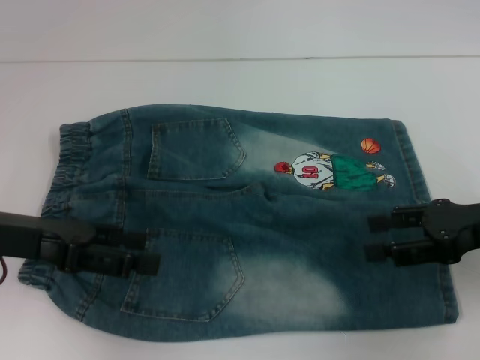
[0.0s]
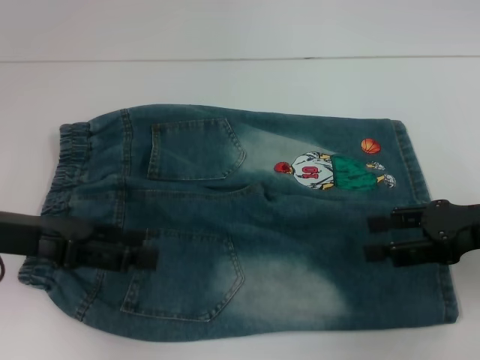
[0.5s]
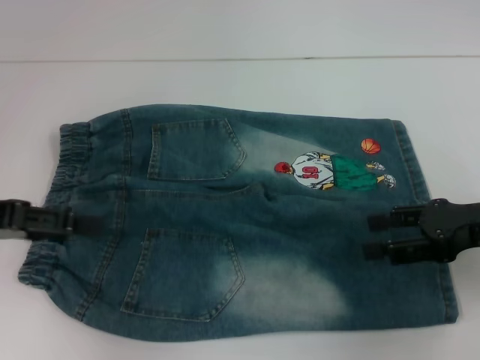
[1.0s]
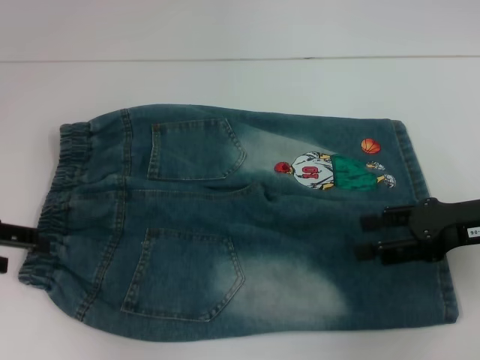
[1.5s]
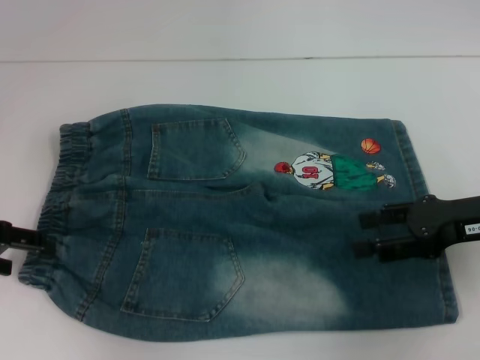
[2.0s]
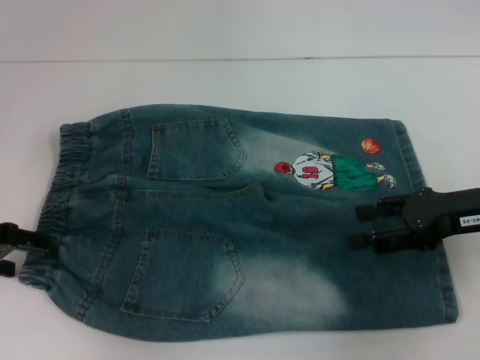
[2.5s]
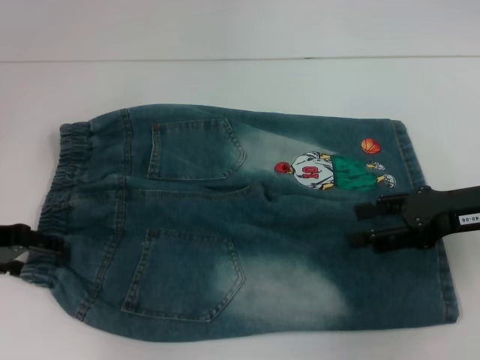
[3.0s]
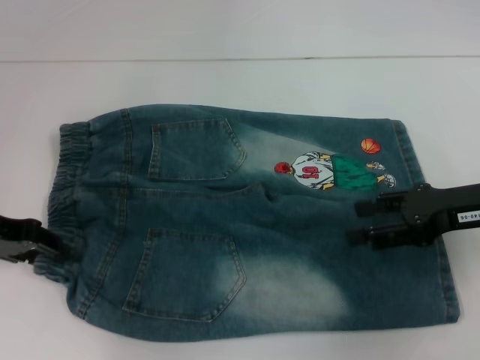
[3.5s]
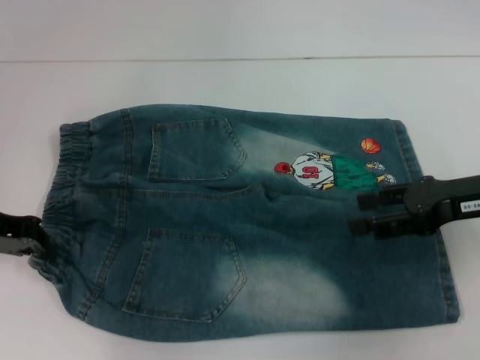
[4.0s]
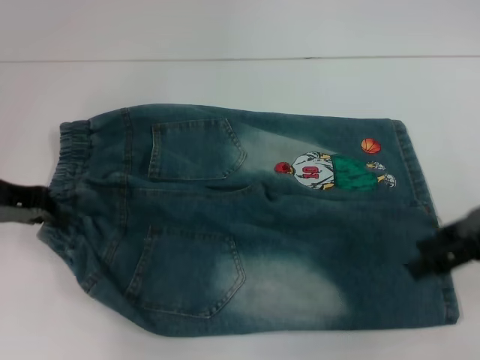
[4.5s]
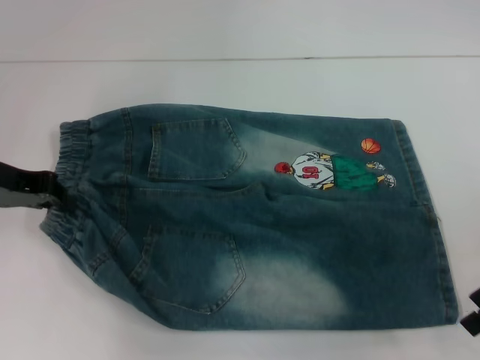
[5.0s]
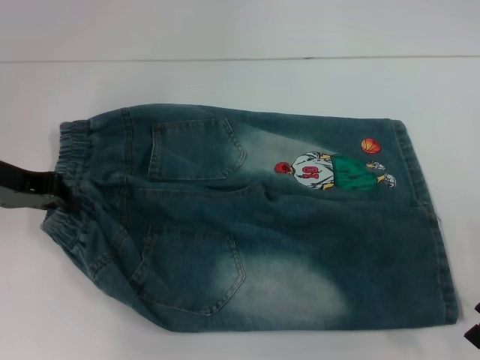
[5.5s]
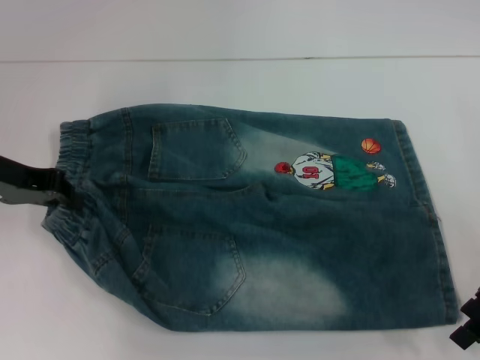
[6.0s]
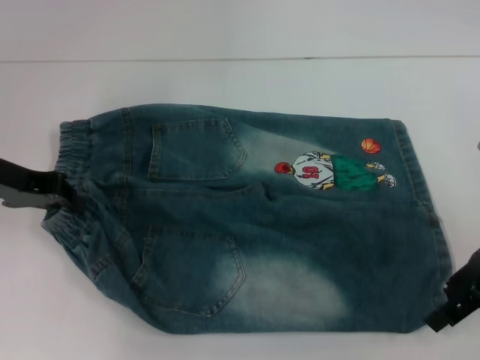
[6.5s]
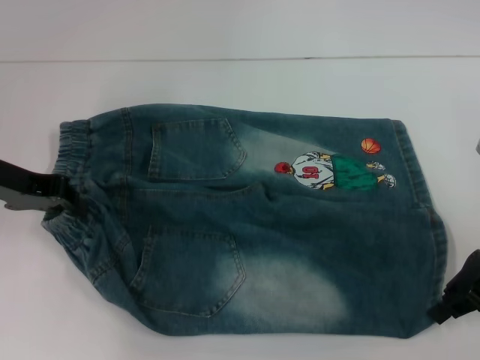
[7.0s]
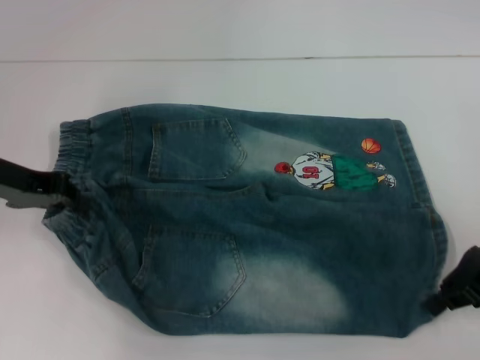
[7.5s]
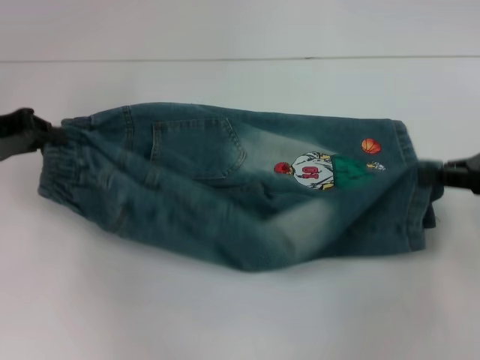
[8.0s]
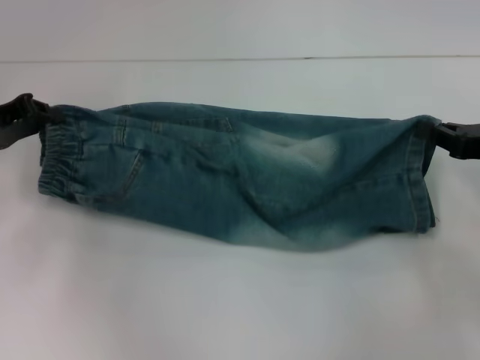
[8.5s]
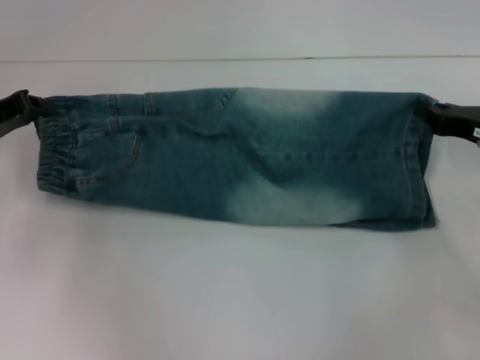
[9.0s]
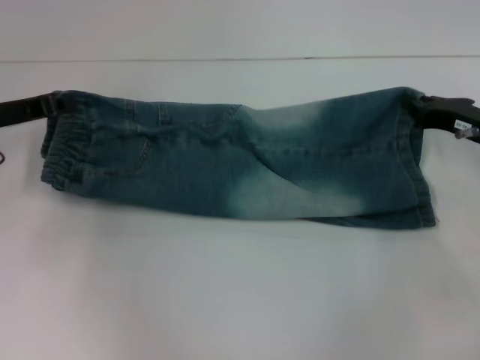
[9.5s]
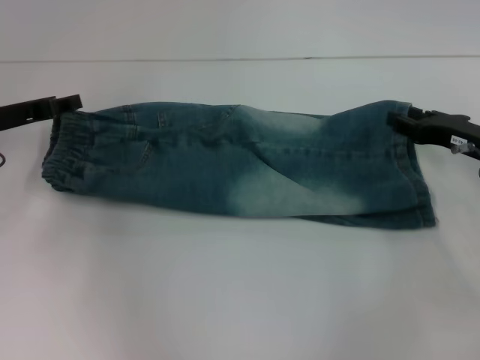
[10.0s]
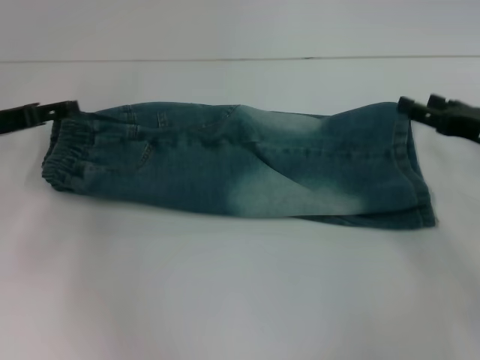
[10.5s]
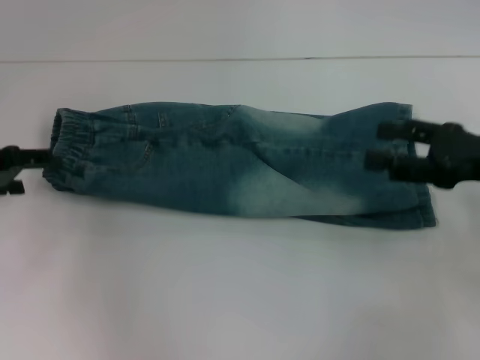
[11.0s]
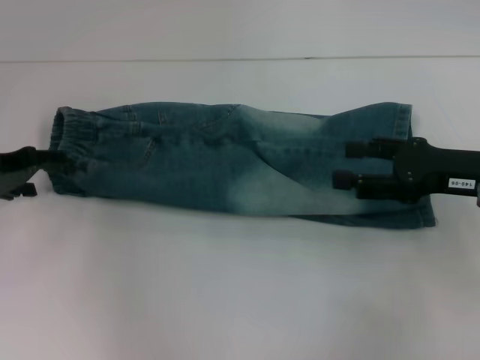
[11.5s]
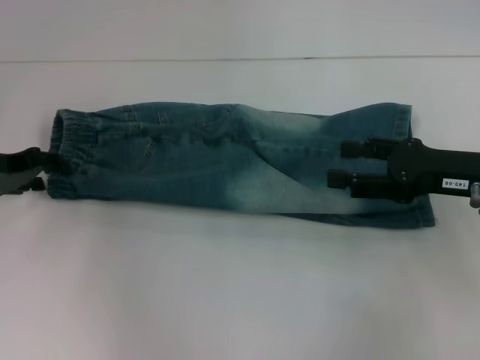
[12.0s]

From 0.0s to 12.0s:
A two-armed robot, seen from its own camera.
Step, from 0.0s to 3.5s: Hold the lower left waistband with your left hand.
Step, from 4.0s to 7.0s: Grab the lower right pant leg with your right hand.
Step, from 7.5s to 9.5s: Fold upward with your left hand.
From 0.0s to 2.0s: The left gripper goes about 5 cm to the left.
From 2.0s to 4.0s: The left gripper closes.
From 6.0s to 8.0s: The right gripper closes its fingers.
From 8.0s to 10.0s: The left gripper ends up some 5 cm from where it was. Meanwhile the right gripper goes about 10 cm downward.
From 10.0s to 12.0s: The left gripper opens its fingers. The right gripper moves upward and backward, some 5 cm, and opens up.

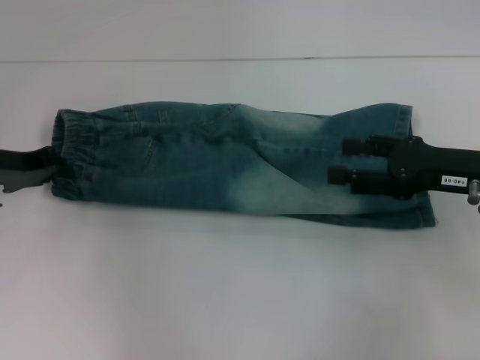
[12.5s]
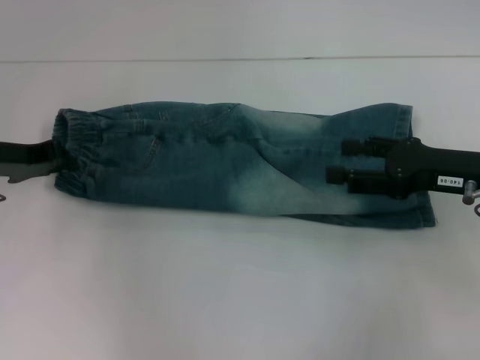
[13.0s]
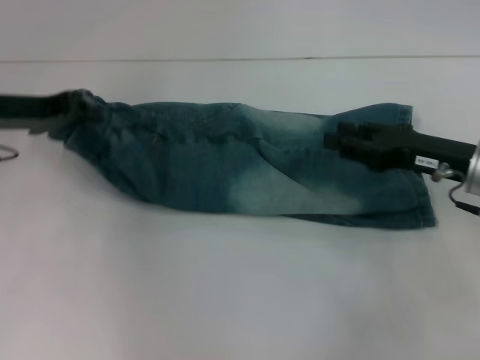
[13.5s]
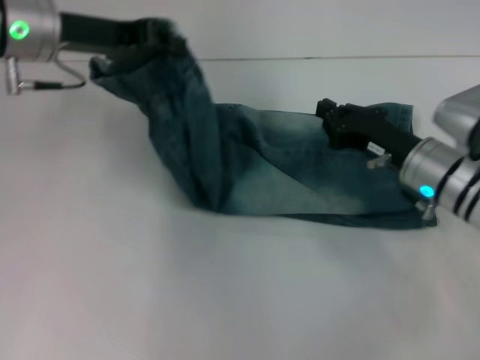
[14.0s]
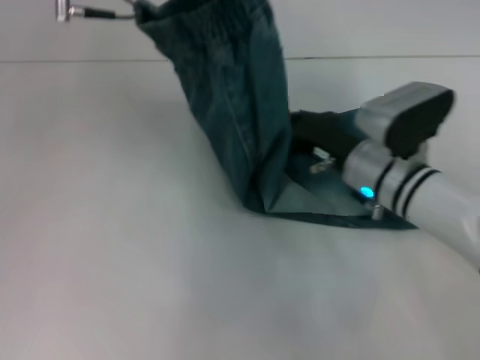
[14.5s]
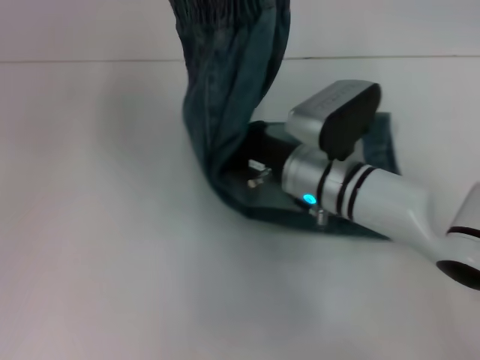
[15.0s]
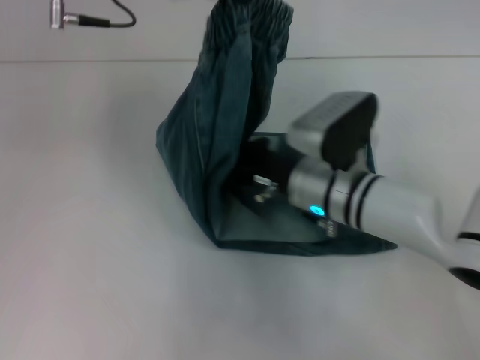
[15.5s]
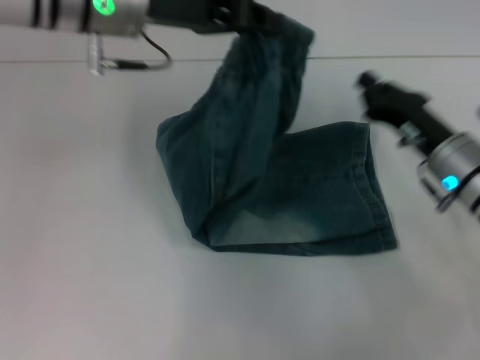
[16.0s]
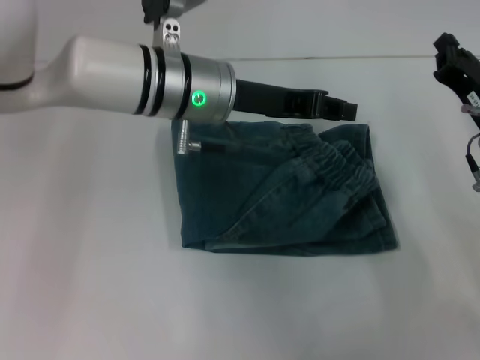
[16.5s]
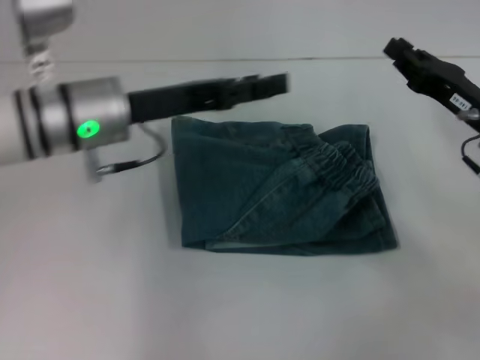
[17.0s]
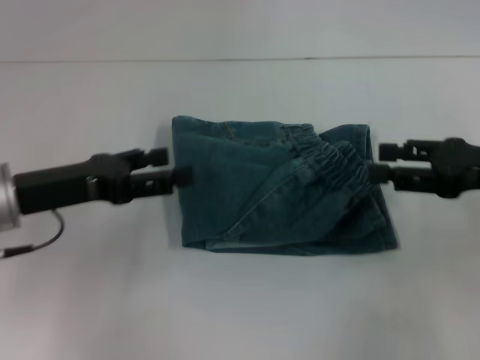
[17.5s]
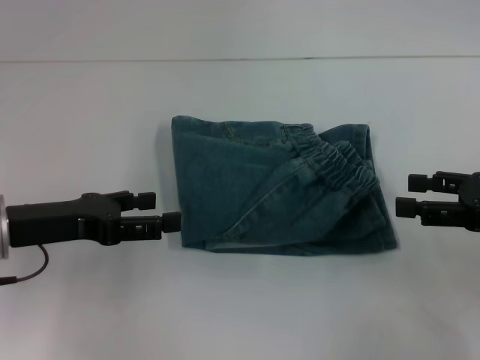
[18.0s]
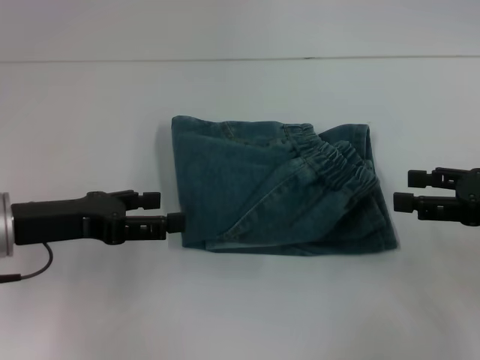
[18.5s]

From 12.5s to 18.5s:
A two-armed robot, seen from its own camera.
Step, from 13.5s to 15.5s: Press the middle of the pants with your right hand.
From 12.5s to 14.5s: The left gripper travels upward and to the right by about 25 cm, while the right gripper is displaced to the left and downward by roughly 15 cm, and closes up.
From 14.5s to 16.5s: The right gripper travels to the right by approximately 10 cm; the left gripper goes roughly 15 cm downward and to the right.
From 16.5s to 18.5s: The left gripper heads to the left and backward, covering some 20 cm, and opens, while the right gripper heads backward, to the right and upward, covering approximately 10 cm, and opens.
